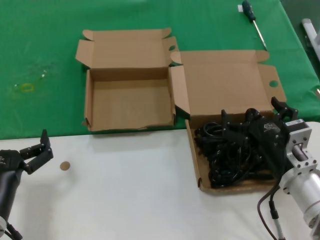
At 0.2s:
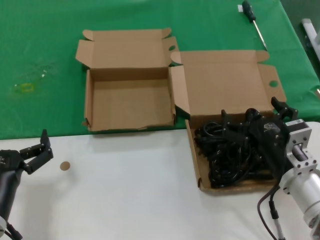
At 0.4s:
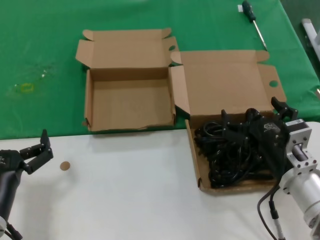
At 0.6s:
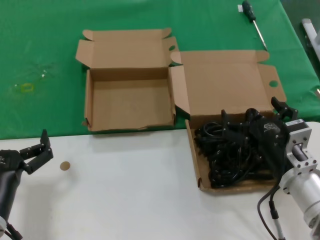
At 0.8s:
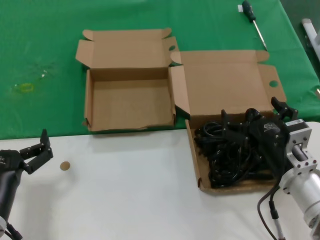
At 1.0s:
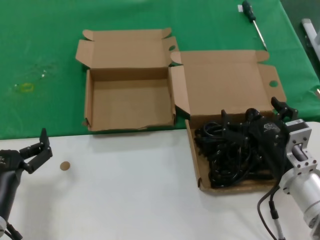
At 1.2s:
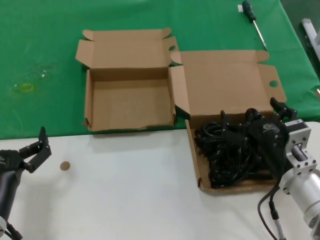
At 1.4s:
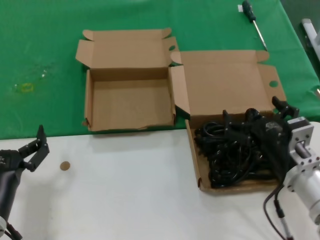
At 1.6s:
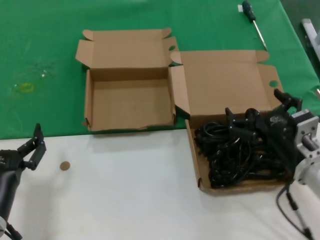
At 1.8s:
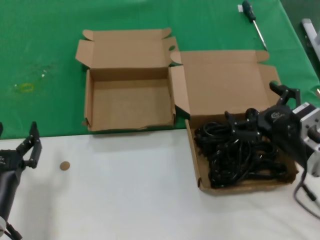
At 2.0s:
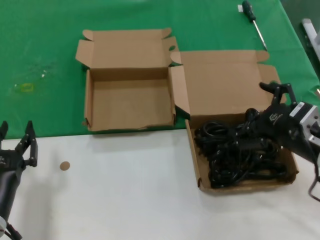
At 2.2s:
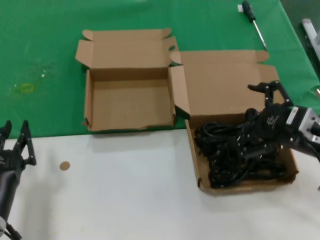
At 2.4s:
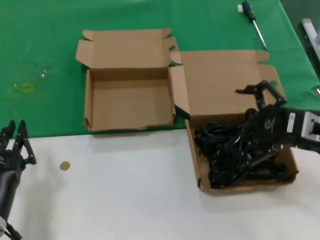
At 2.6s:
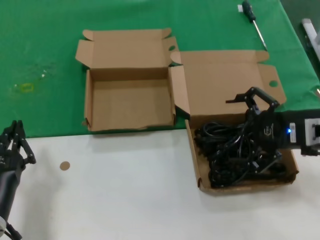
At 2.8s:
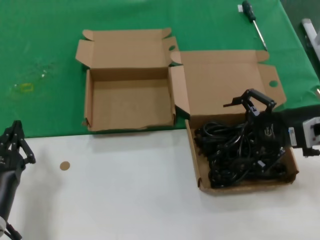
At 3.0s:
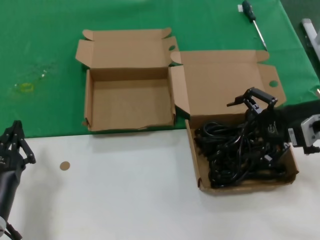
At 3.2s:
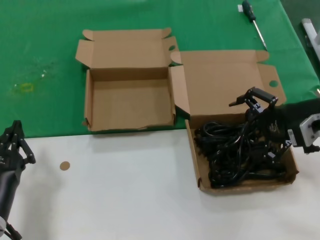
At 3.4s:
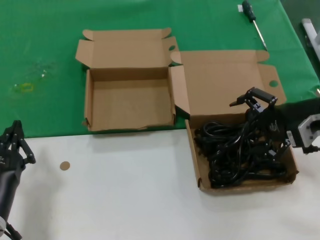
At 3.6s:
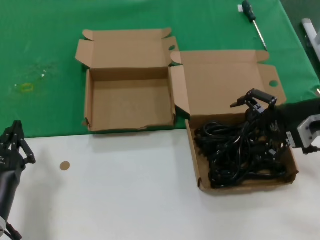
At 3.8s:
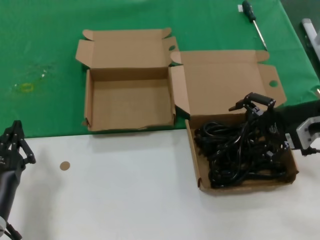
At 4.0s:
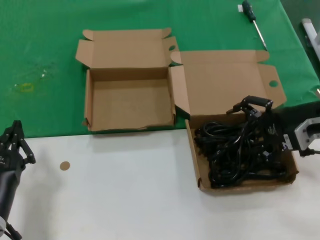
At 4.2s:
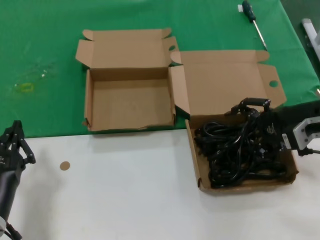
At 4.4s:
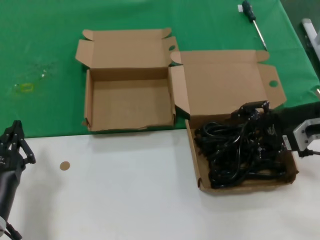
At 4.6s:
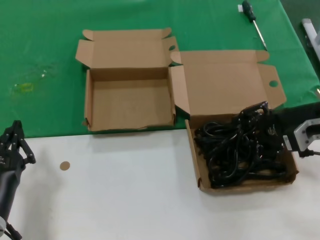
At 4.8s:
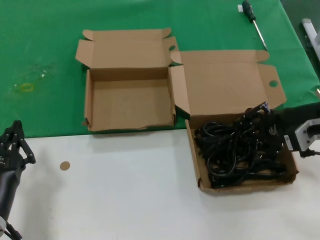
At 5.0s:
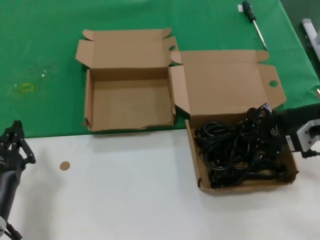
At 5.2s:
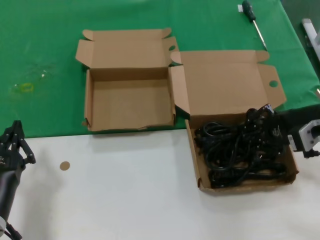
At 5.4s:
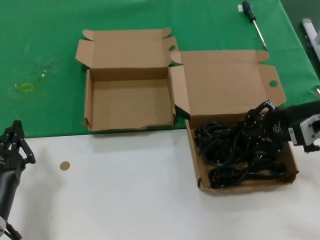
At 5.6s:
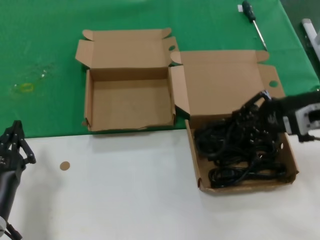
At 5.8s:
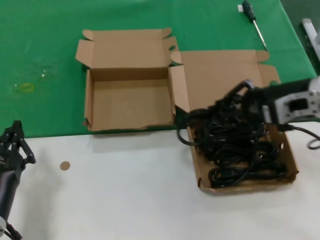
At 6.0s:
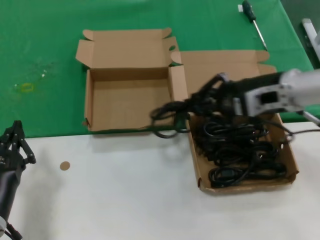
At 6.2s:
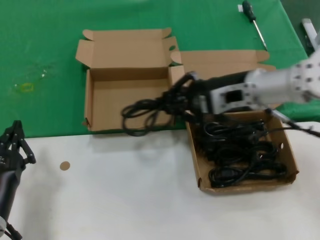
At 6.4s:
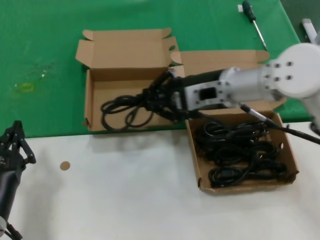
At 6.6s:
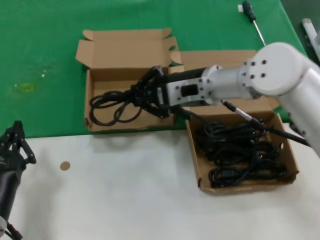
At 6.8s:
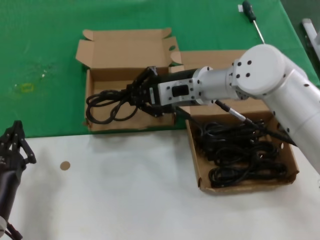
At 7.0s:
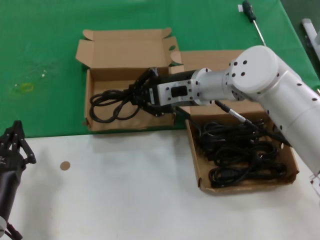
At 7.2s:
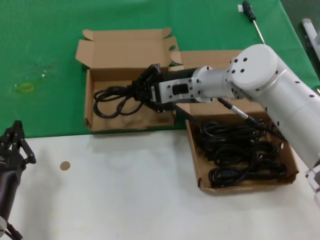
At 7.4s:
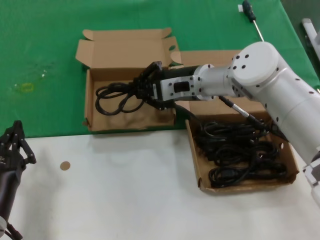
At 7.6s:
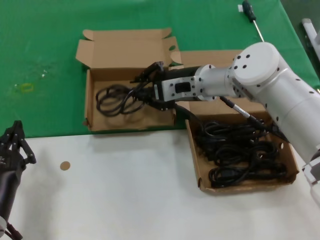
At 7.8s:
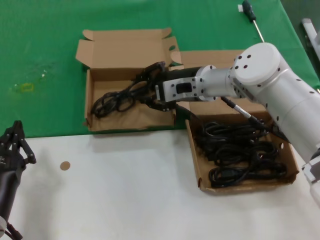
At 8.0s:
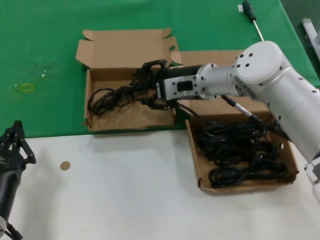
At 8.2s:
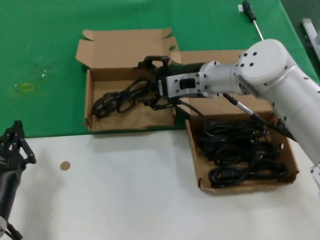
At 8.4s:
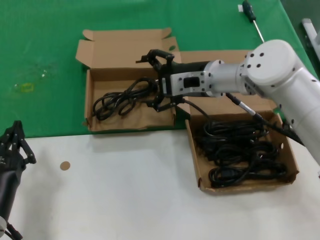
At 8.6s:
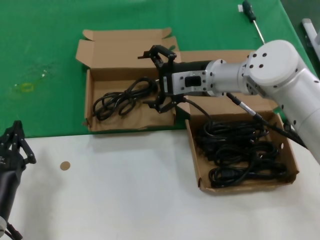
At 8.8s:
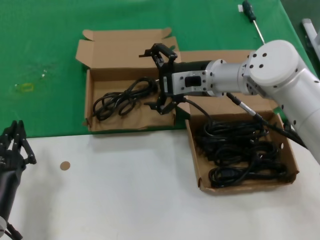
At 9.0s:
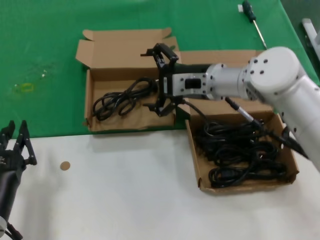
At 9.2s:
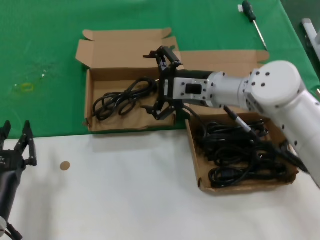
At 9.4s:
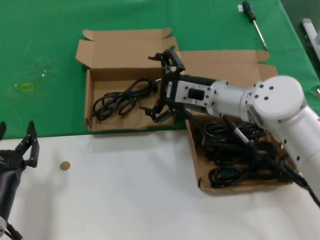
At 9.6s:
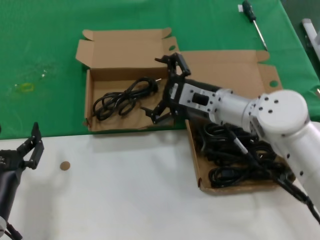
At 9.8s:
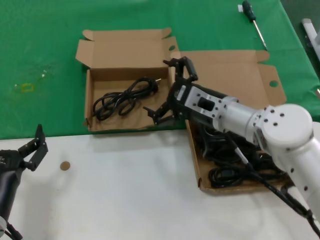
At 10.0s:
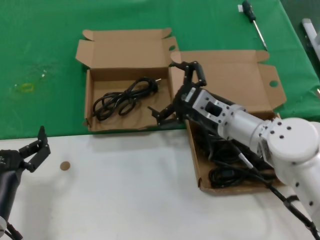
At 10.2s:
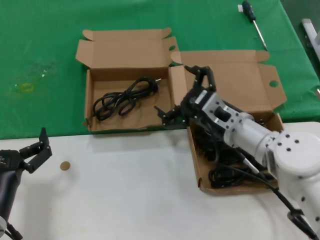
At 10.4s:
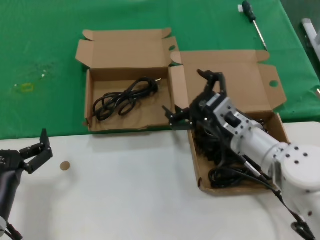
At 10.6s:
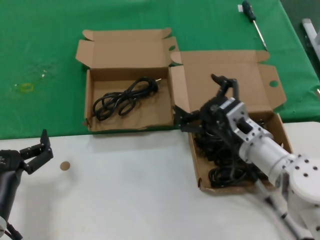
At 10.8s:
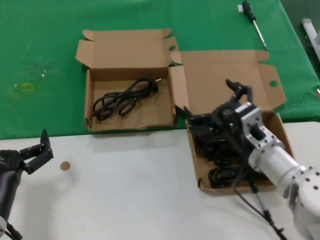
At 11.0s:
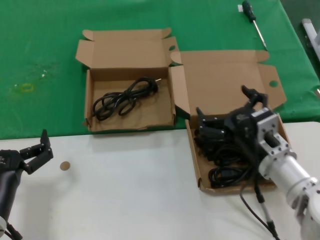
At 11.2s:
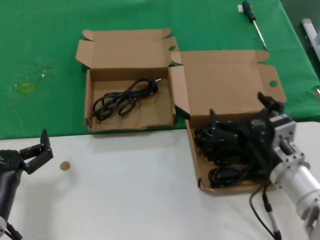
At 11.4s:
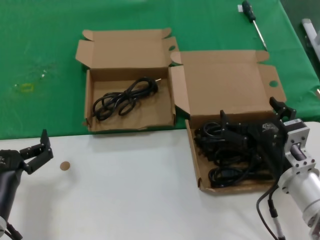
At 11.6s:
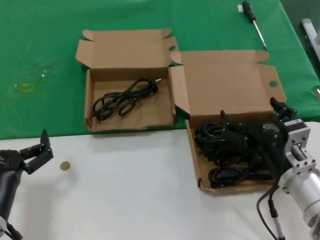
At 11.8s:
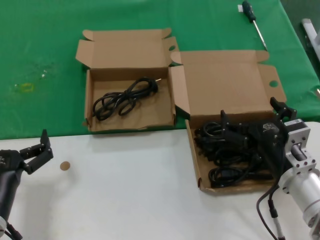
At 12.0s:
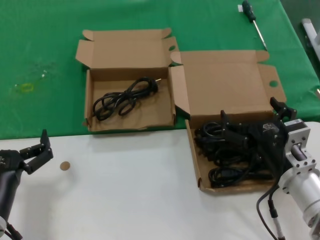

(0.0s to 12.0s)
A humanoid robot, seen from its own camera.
Task of the whole recording: take the parts from the box containing them and put them into an empty box.
Step, 0.0s - 5.0s: Grasp the data cable.
Step, 5.2s - 8.2s: Place the data cable in the another box.
0.0s - 1.6s: There are only small adjustments of the hands.
1.6s - 3.0s: The right hand goes roughly 15 cm upward, to the right and forward.
3.0s - 4.4s: There are only small adjustments of the hands.
4.4s - 6.0s: The right hand shifts some 10 cm to the left and upward.
6.0s - 7.6s: The right hand is displaced to the left and forward by roughly 15 cm.
7.6s - 9.0s: The hands move only a little.
9.0s - 10.4s: The right hand goes about 15 cm backward and downward.
10.4s - 12.0s: The right hand heads backward, covering approximately 10 cm.

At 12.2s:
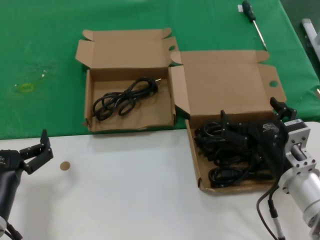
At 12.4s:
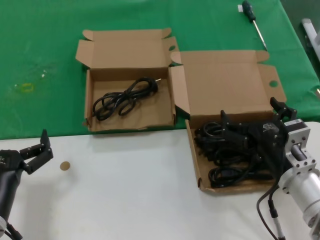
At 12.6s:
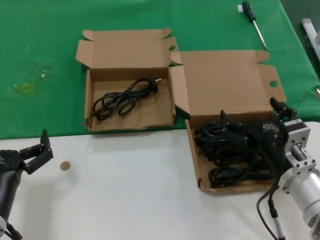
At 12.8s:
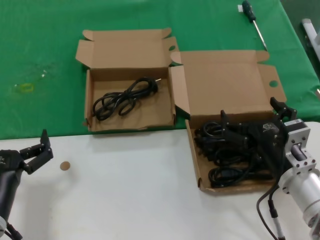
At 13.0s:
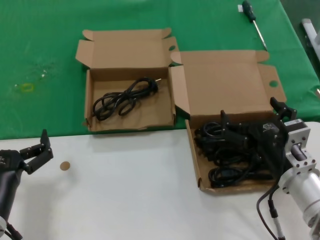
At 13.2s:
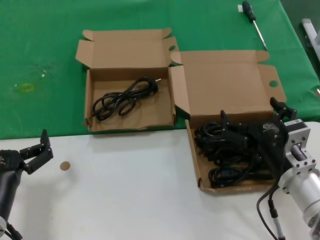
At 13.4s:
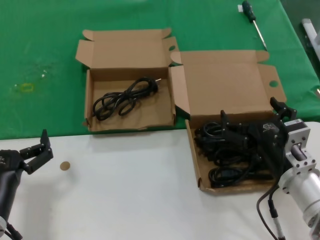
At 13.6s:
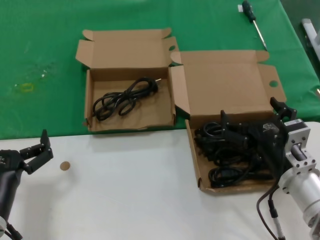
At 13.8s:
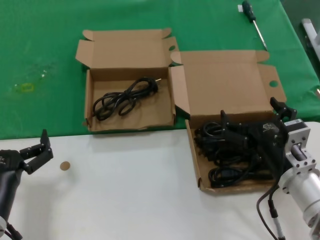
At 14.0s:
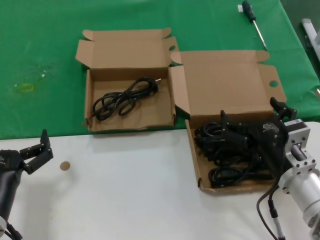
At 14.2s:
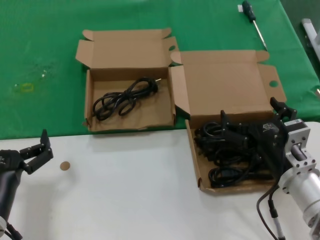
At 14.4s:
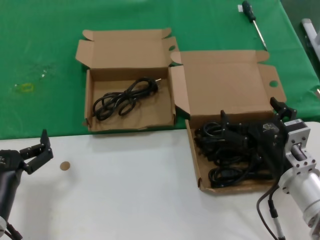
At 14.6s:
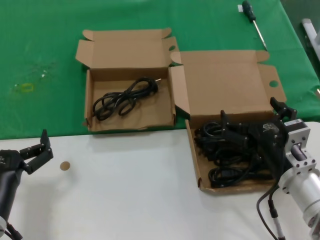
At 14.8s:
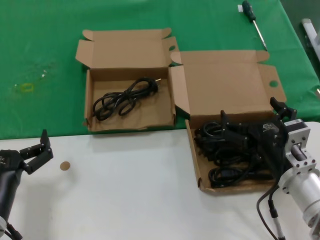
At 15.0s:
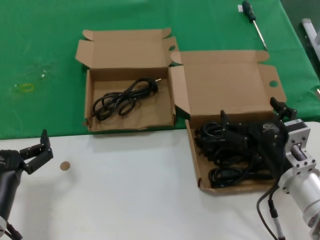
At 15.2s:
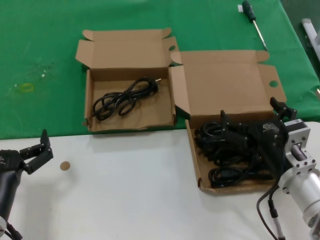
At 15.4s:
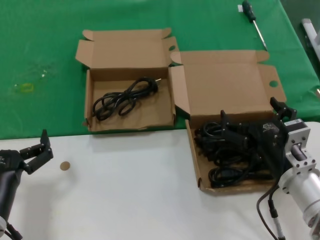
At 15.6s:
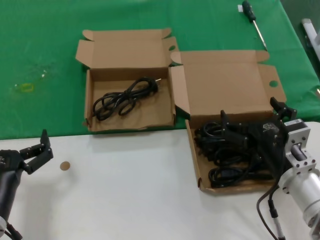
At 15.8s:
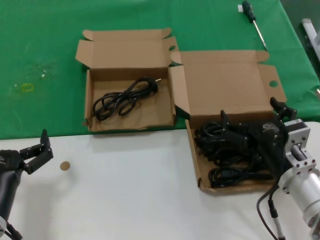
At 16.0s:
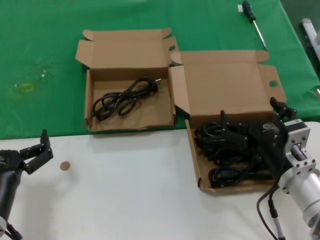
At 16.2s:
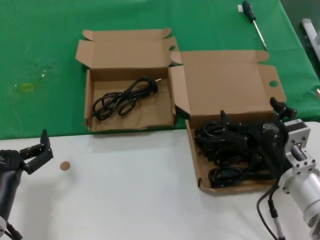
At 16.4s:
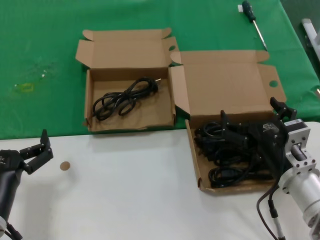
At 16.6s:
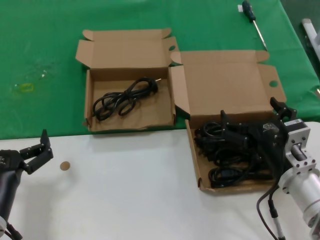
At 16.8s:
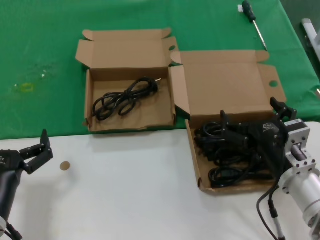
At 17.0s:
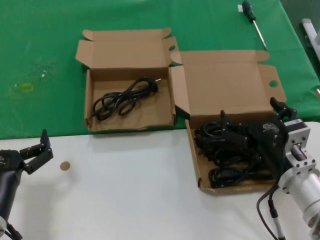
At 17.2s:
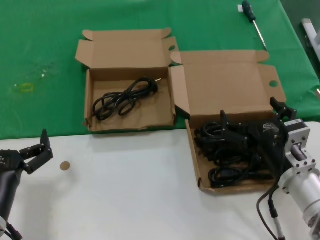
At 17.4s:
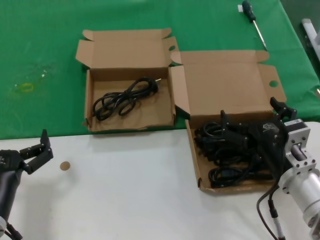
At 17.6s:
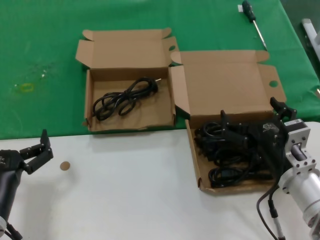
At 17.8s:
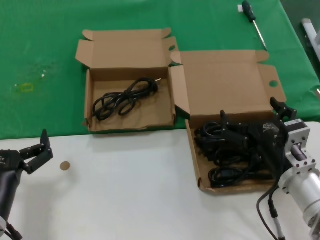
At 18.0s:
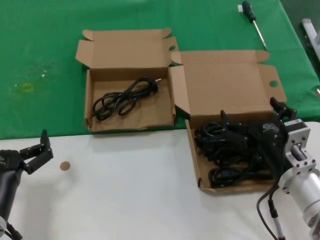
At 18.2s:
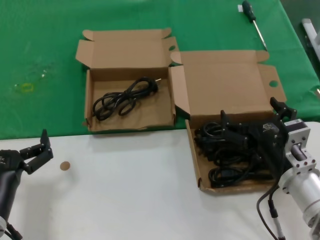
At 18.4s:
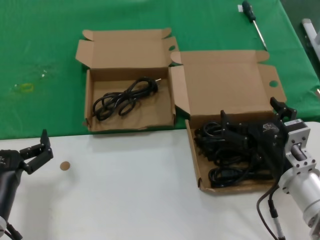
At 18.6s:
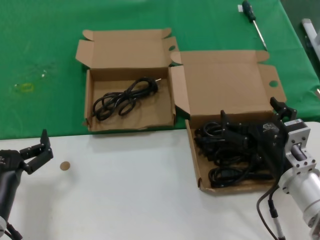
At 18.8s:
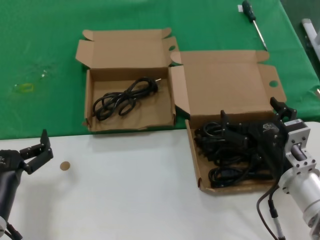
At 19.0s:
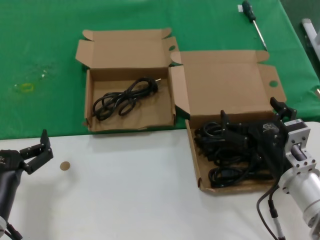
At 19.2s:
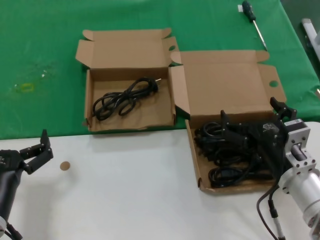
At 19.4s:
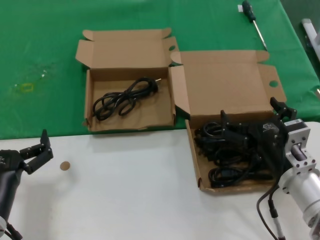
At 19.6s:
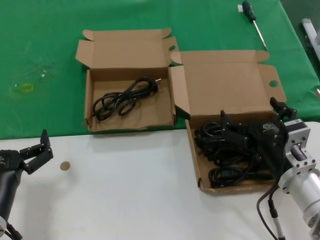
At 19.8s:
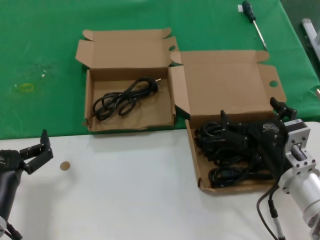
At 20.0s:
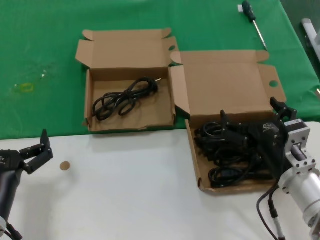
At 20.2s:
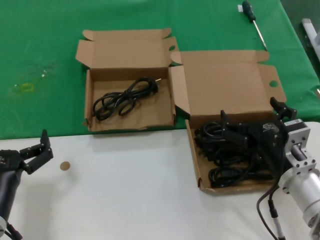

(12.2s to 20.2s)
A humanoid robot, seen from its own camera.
Task of the whole recording: take the parts from the box containing them and put them into an empty box.
12.2s - 20.2s: Both hands stay put.

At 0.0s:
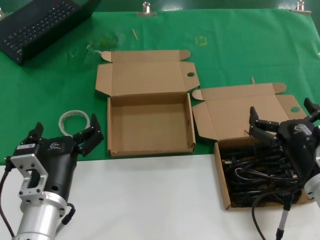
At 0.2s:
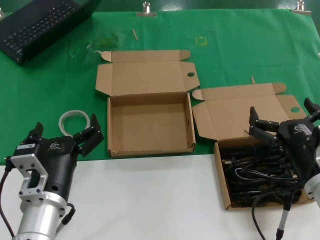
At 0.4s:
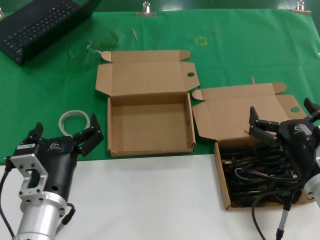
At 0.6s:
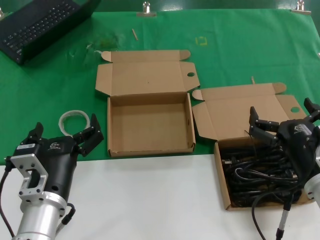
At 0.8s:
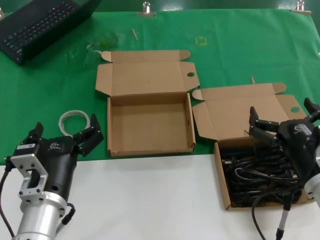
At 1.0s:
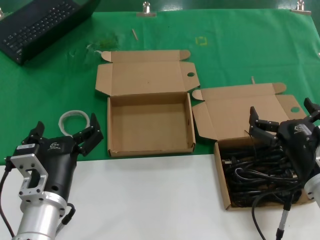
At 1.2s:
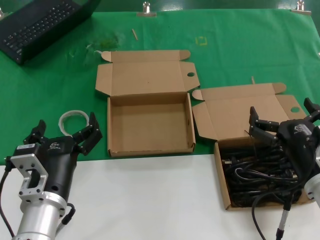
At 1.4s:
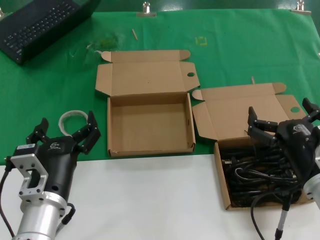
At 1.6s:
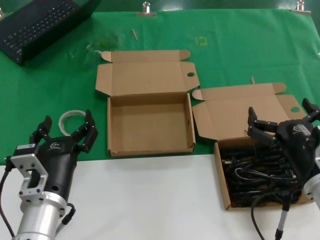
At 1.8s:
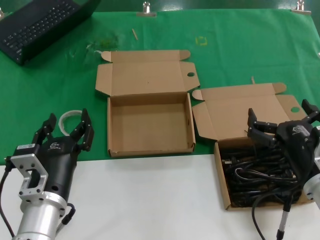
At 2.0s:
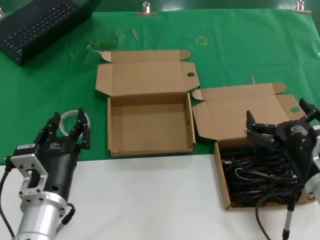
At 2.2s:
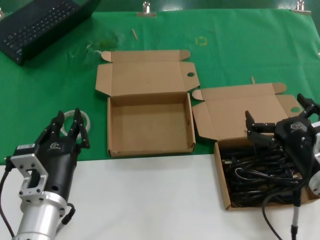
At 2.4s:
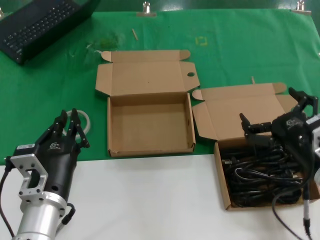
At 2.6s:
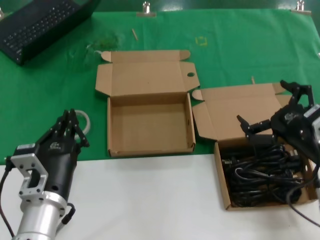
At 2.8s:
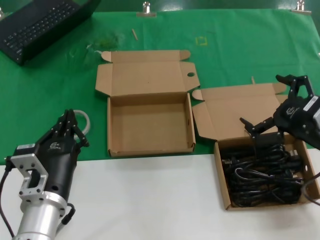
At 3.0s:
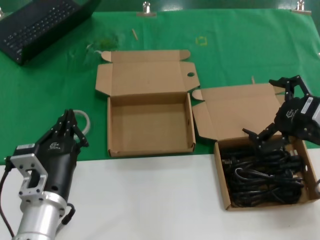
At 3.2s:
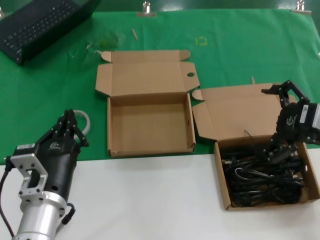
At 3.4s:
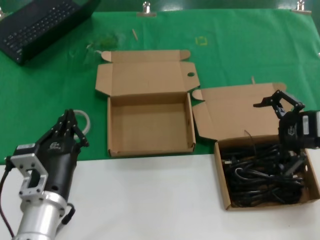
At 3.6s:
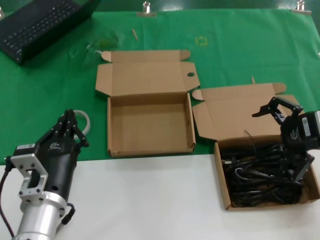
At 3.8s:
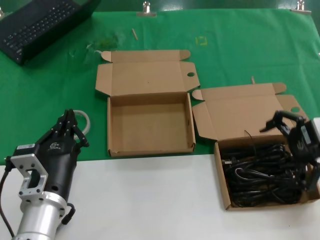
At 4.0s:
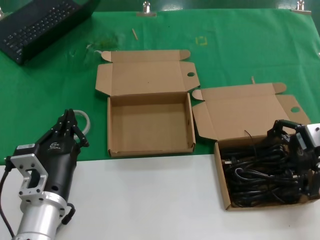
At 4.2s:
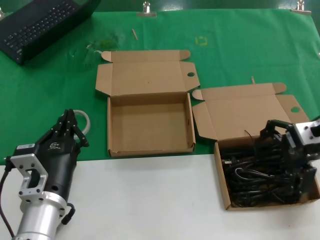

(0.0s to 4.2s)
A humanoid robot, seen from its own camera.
Task of the whole recording: take the parts from the box containing them and put them into an empty box.
0.0s - 1.4s: Both hands stay put.
1.4s - 2.8s: The right hand is displaced upward and to the right by about 10 cm.
2.8s - 4.2s: The right hand goes roughly 10 cm forward and upward.
